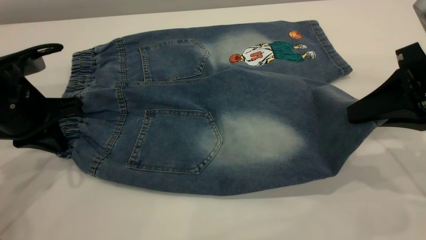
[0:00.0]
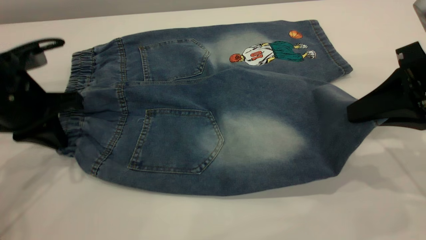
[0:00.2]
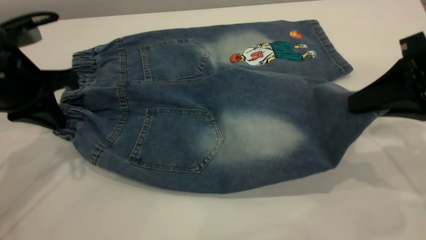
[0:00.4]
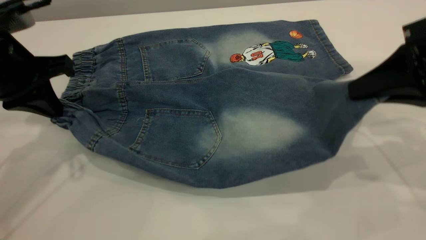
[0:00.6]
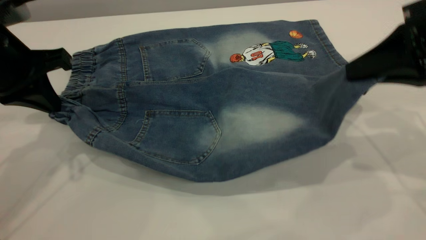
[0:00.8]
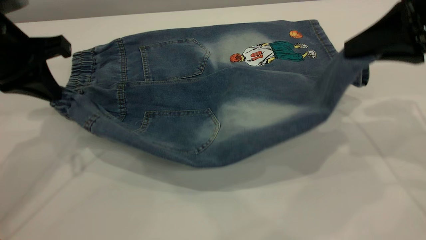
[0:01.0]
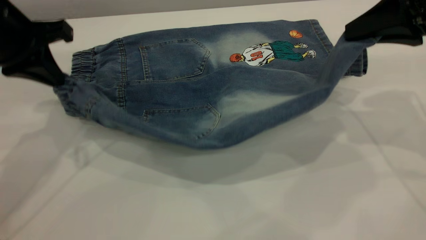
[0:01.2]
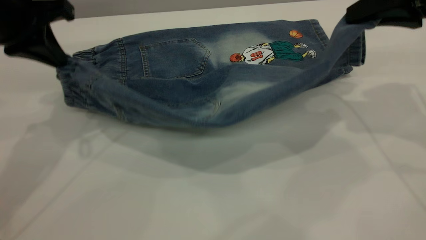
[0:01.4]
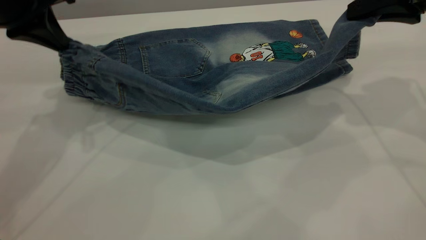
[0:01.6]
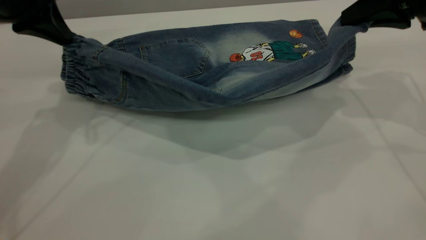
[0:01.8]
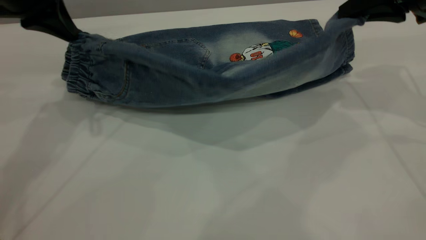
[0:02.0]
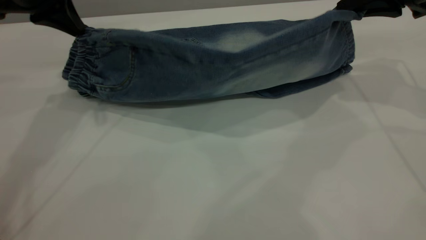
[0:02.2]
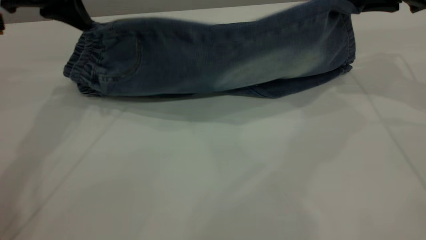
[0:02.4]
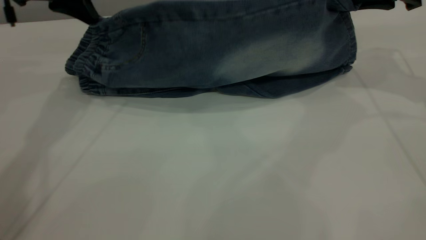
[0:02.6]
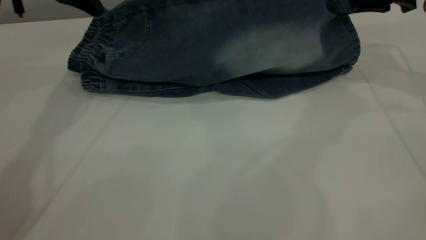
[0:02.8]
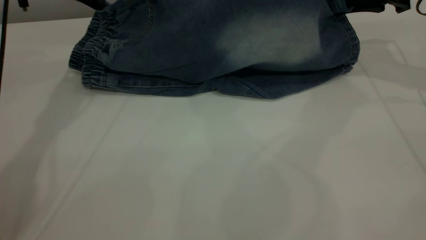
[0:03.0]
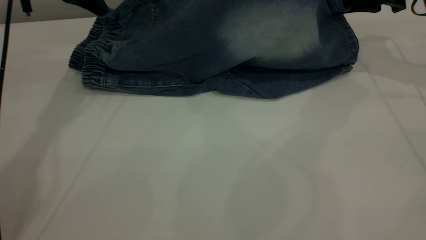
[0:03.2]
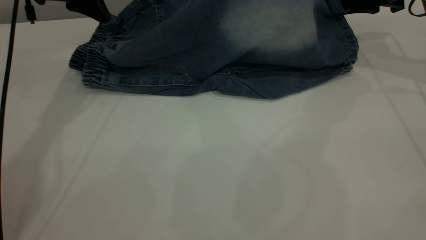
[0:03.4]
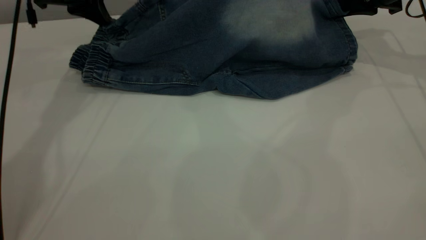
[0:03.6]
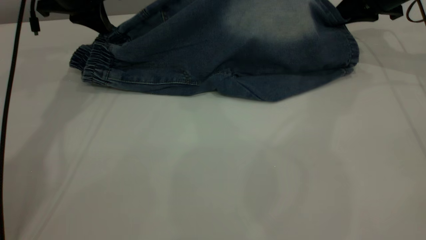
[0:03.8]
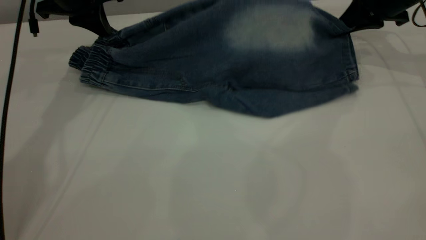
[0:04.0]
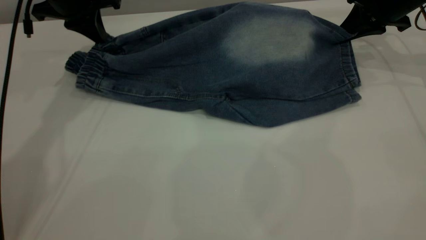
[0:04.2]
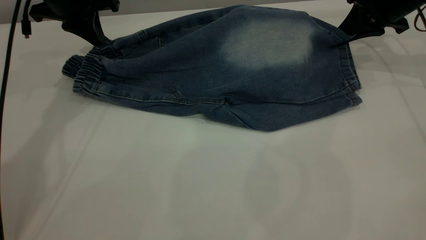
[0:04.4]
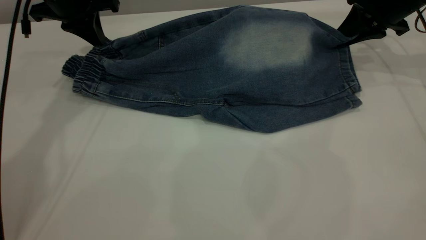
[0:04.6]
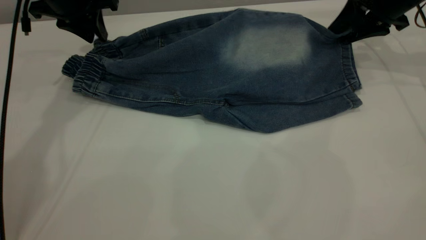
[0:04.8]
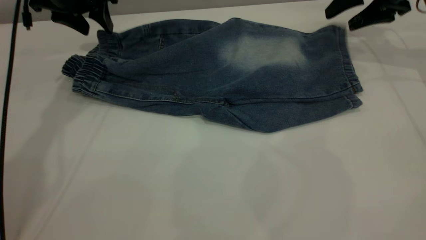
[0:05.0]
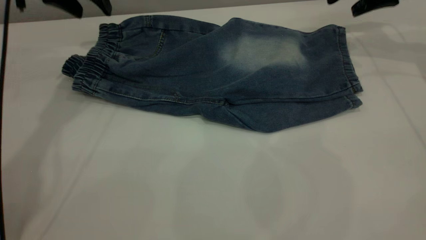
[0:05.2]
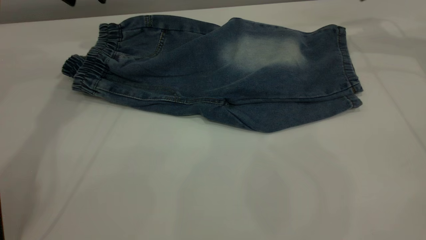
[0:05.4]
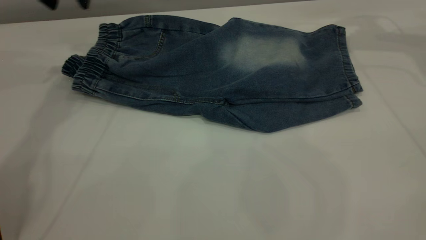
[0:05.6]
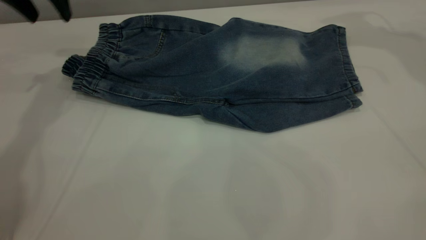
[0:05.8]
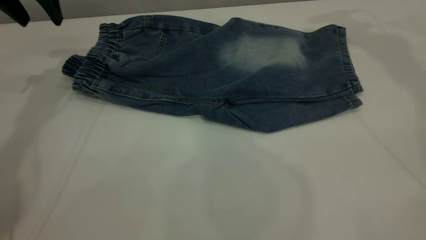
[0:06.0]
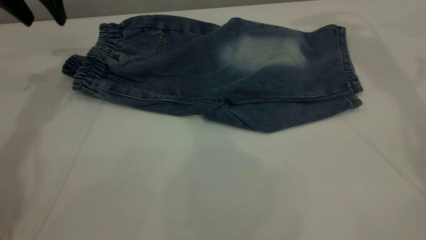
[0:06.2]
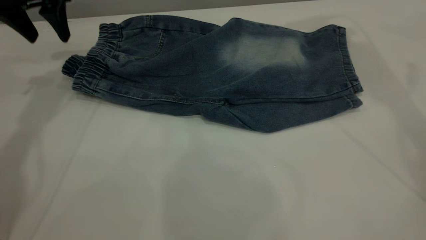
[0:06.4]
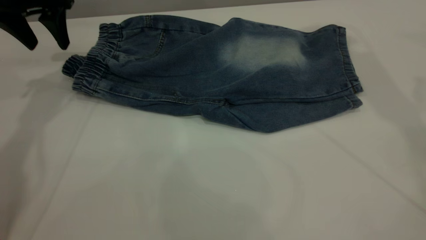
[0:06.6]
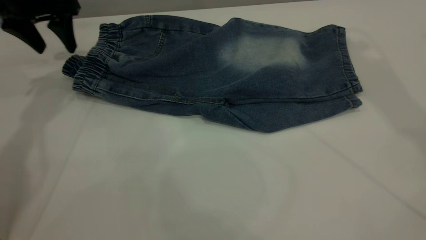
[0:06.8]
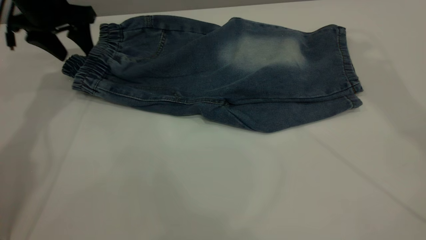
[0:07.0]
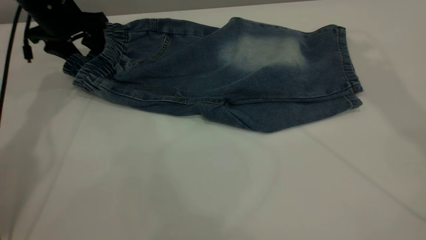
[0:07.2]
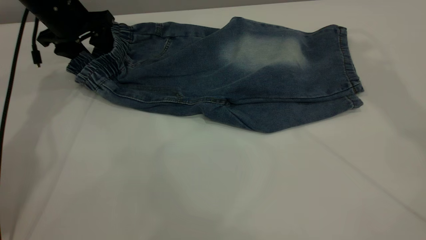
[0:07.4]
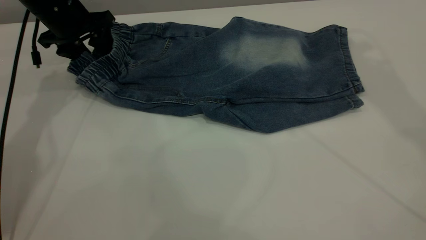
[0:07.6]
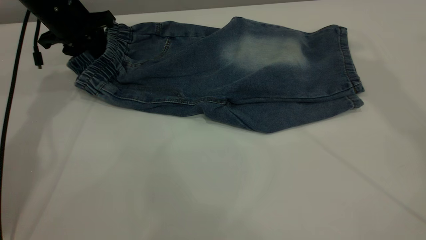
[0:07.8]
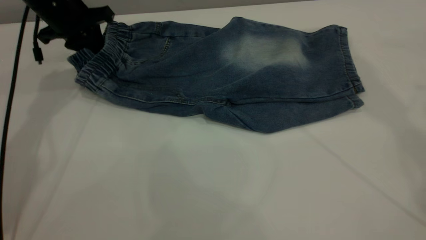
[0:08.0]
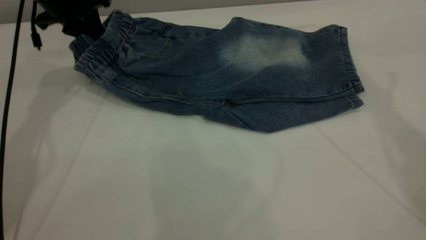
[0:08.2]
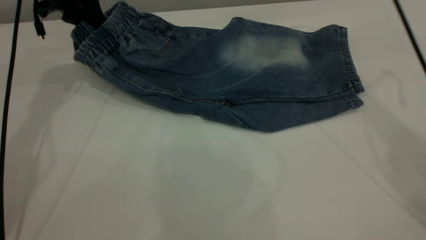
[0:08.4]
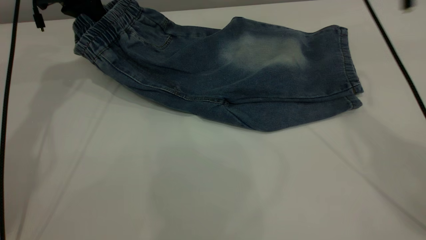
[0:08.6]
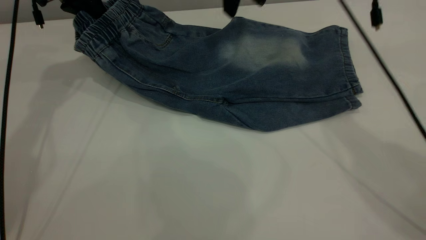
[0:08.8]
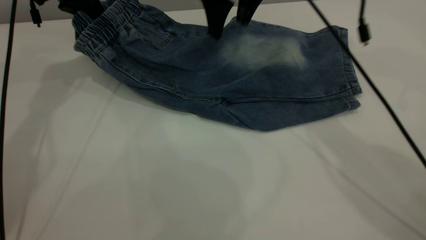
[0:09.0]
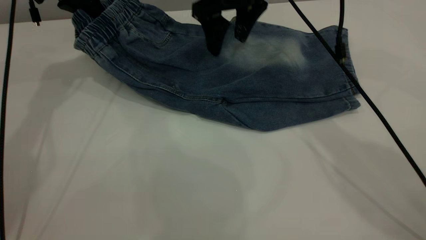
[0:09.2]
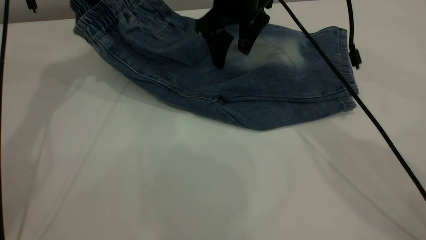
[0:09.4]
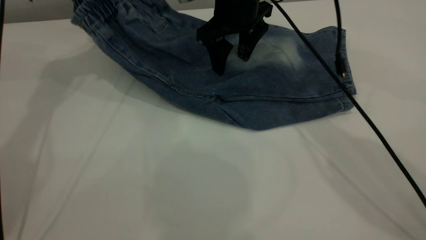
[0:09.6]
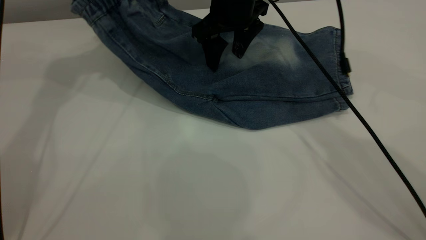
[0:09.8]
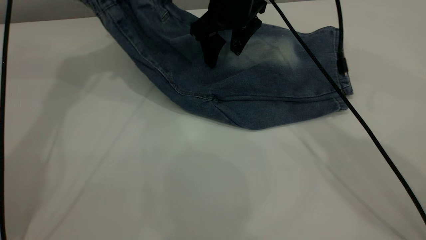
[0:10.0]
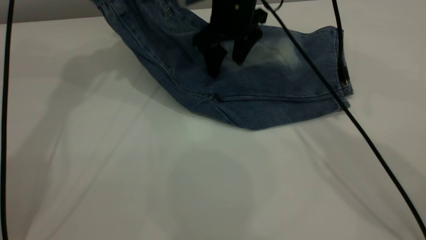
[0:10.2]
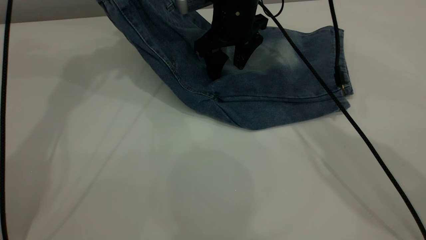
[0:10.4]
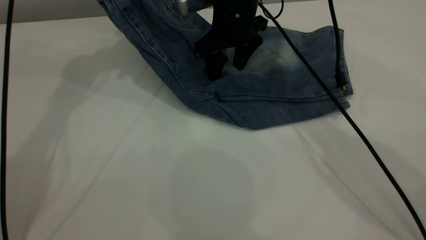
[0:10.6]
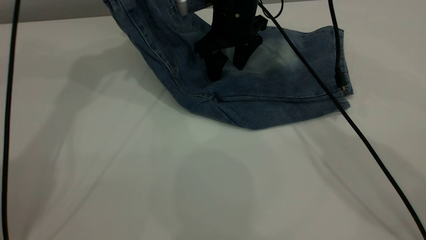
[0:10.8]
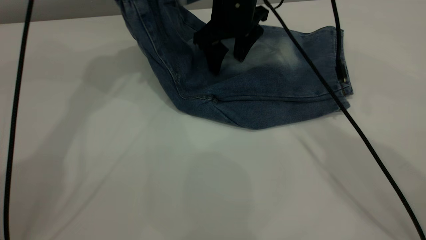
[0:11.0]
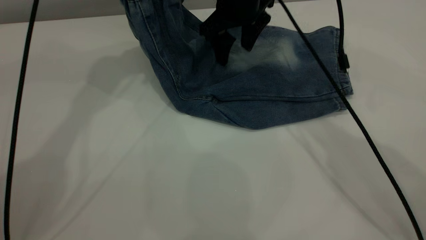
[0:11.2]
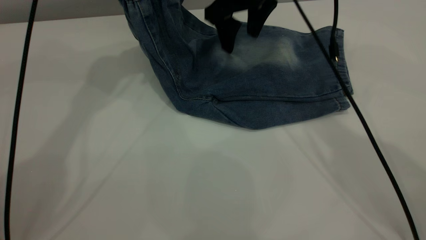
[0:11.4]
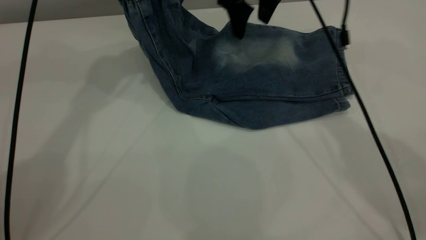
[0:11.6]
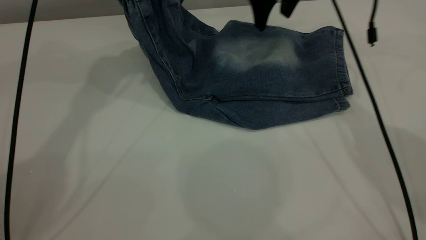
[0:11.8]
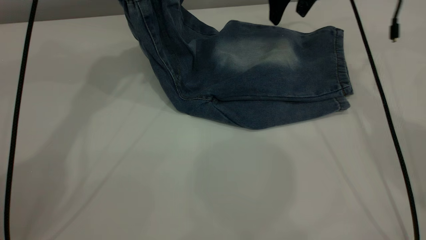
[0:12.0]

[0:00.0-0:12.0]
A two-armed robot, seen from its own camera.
Step, 0:00.0 to 0:05.4: Fold the bottom of the pants upward.
0:00.0 to 0:01.6: The left gripper goes about 15 cm upward and forward, while the right gripper goes about 10 cm forward and upward.
0:01.6 to 0:03.0: The grippers both shift forward by some 10 cm.
0:04.4 to 0:06.0: The left gripper heads upward, covering about 5 cm, and opens. Meanwhile the right gripper shifts approximately 25 cm upward, and opens.
0:06.0 to 0:07.6: The right gripper travels upward and backward by about 15 cm. Meanwhile the left gripper shifts roughly 10 cm downward.
0:07.6 to 0:09.0: The right gripper is displaced downward and to the left by some 30 cm, while the left gripper goes roughly 5 cm upward, and closes its fingers.
0:09.0 to 0:10.4: The left gripper travels upward by about 10 cm, while the right gripper moves downward, some 10 cm.
0:10.4 to 0:12.0: The right gripper is displaced to the right, forward and upward by roughly 15 cm; the left gripper is displaced to the right by about 5 cm.

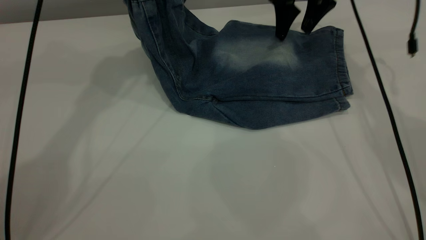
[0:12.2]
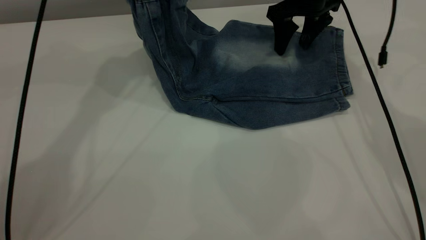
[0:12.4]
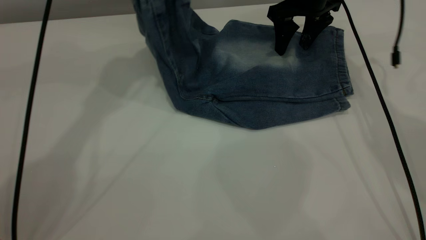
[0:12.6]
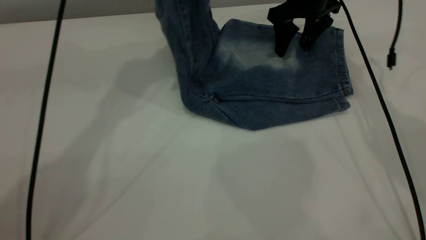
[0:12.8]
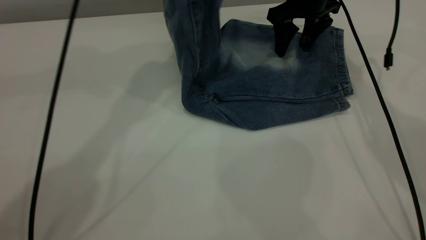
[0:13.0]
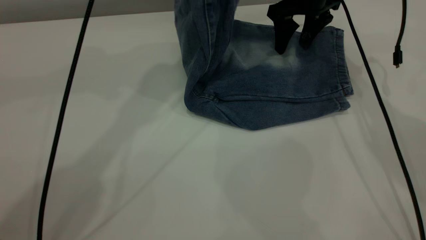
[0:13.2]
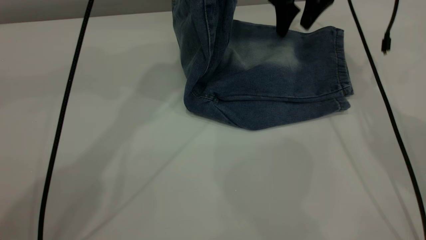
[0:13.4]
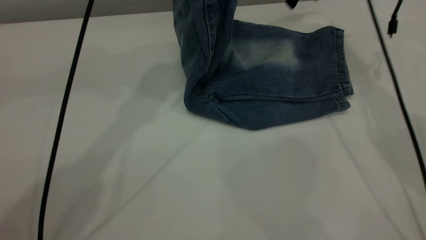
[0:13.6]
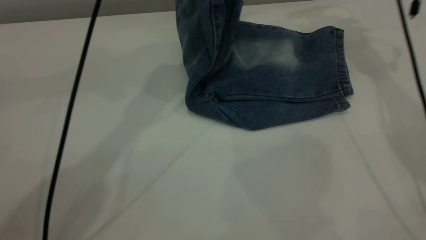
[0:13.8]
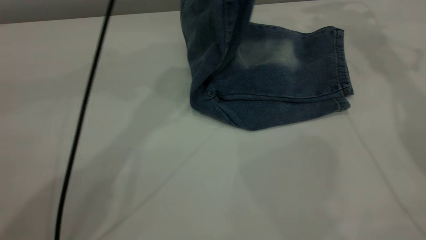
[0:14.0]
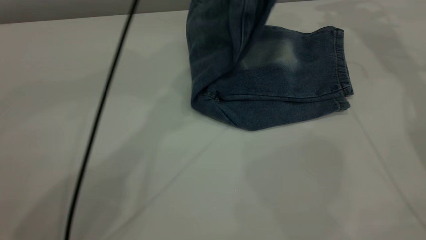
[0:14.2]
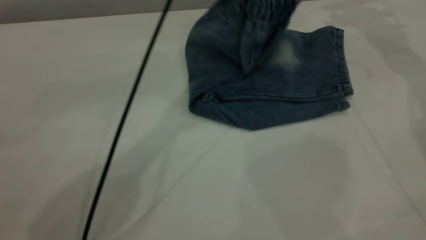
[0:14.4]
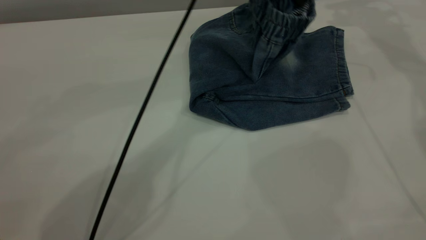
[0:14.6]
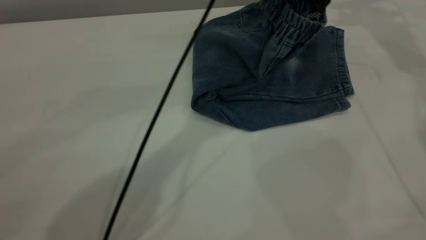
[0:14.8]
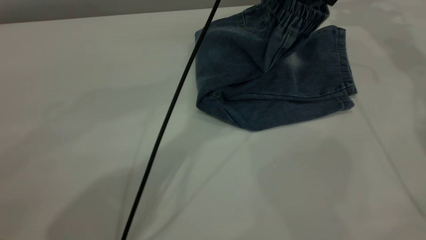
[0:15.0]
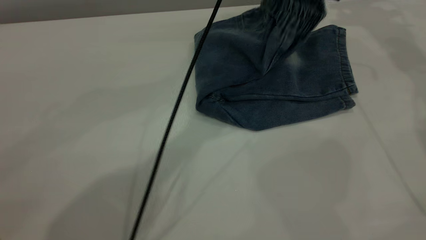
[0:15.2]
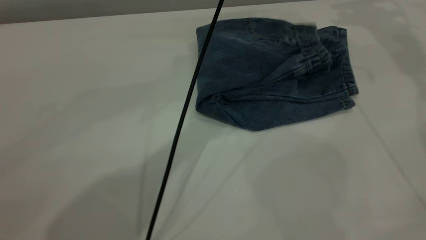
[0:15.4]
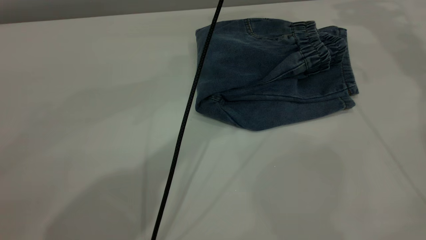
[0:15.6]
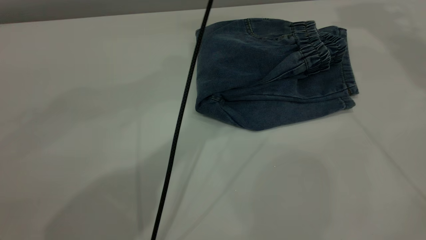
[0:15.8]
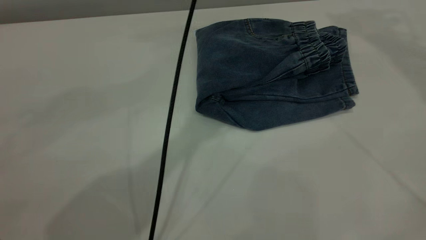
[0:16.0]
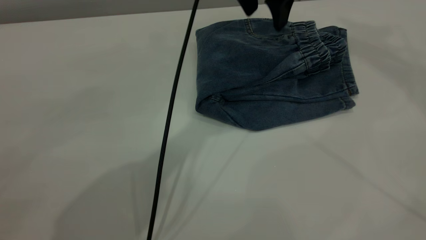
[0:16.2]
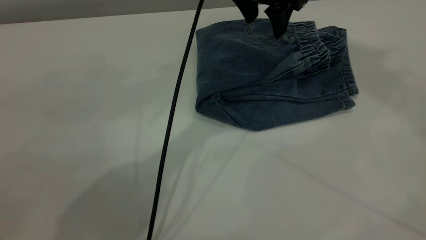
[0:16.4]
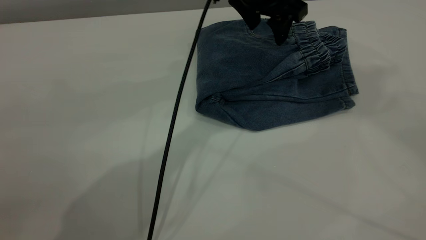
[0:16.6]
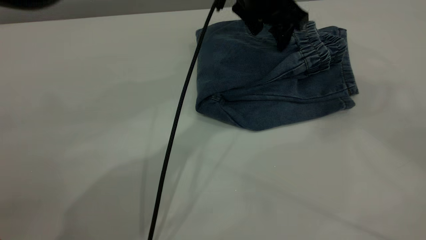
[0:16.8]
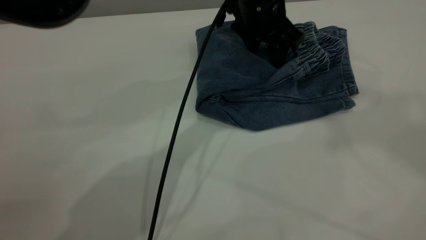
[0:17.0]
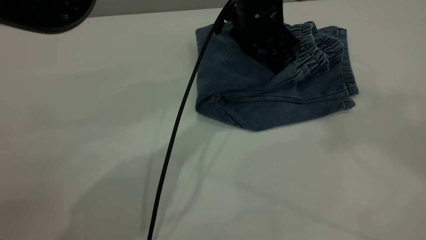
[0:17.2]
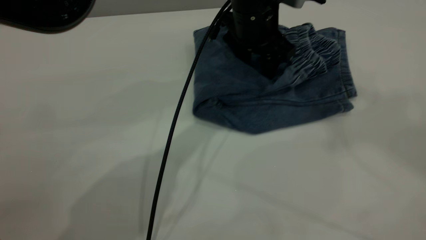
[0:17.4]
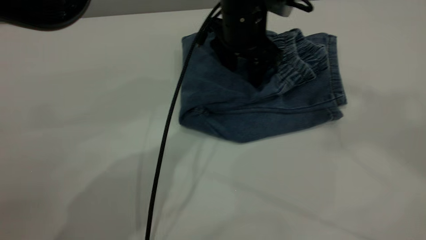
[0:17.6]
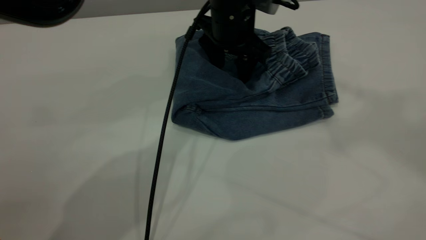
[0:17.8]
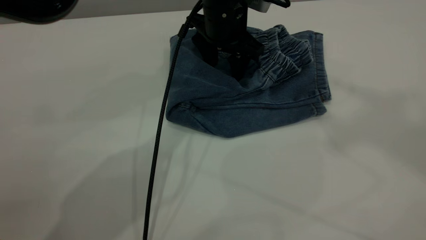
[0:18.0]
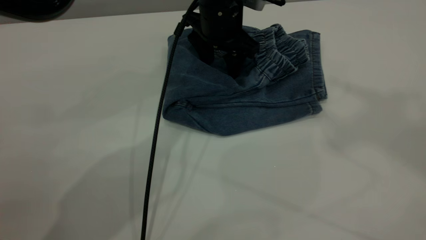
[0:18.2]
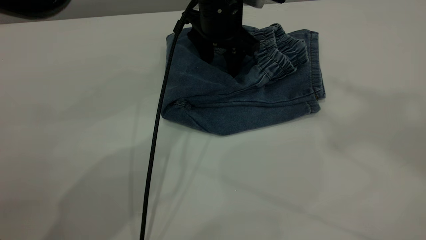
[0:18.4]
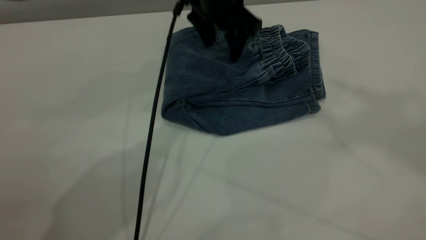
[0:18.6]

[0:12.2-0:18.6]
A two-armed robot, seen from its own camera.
Step, 0:12.2 to 0:15.6: Fold the pants from left to right.
0:12.2 to 0:13.8: The right gripper travels upward and to the right by some 10 cm; the left gripper is displaced to the right by approximately 10 cm.
0:13.8 to 0:15.4: The left gripper goes about 15 cm to the right and downward, and opens. The right gripper travels upward and to the right by approximately 10 cm.
0:15.4 to 0:17.0: The right gripper shifts about 40 cm upward and backward, while the left gripper heads downward, covering roughly 10 cm.
0:17.0 to 0:18.6: The left gripper goes approximately 5 cm to the left.
